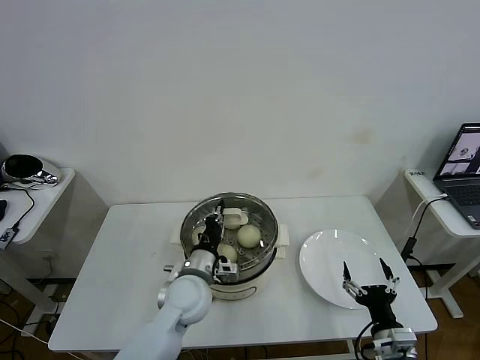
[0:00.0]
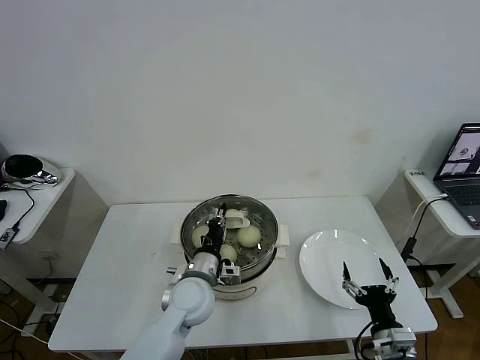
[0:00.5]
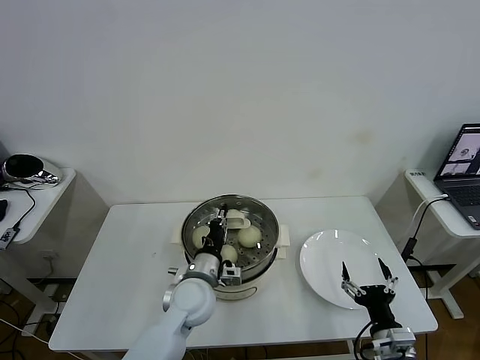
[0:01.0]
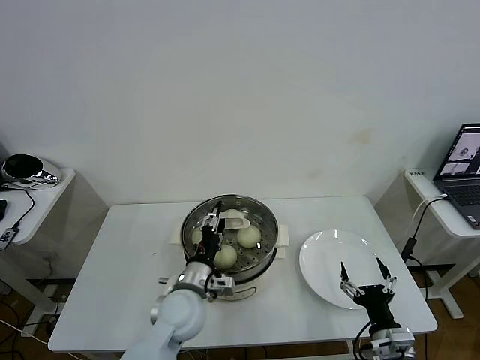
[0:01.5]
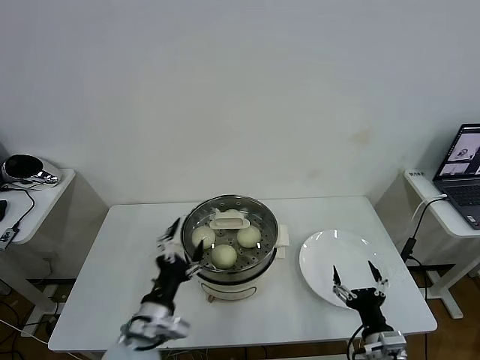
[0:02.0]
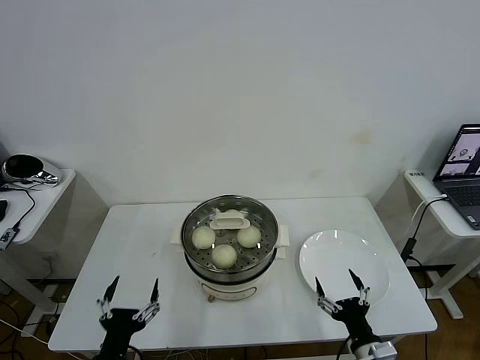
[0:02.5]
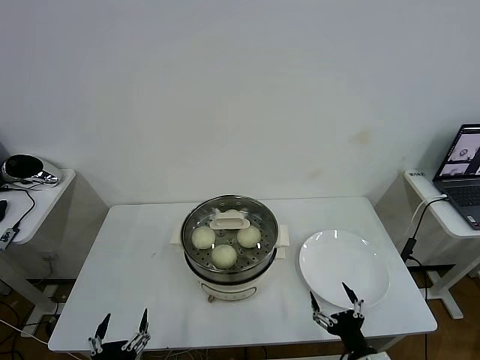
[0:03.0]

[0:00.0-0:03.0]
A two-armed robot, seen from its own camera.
Task of the whole recording: take steamed baozi put them in steamer then cover it.
0:00.0 to 0:01.5: The left gripper opens up.
0:01.5 to 0:03.0: The right gripper changes place by some 5 cm. Meanwhile the left gripper goes some 30 cm backward and to the left, and opens.

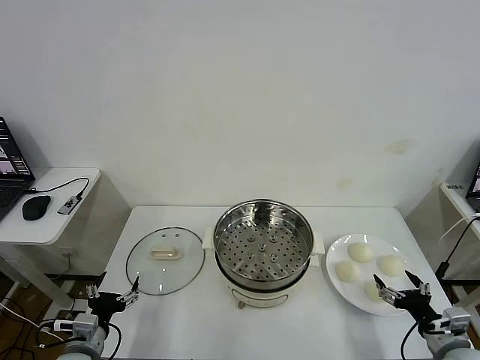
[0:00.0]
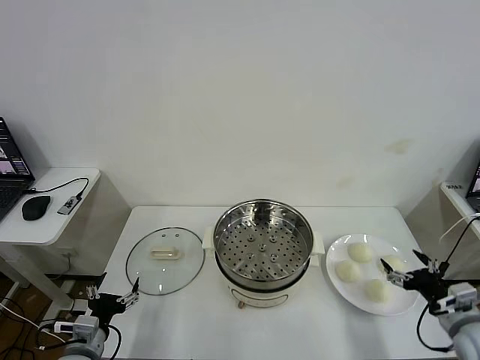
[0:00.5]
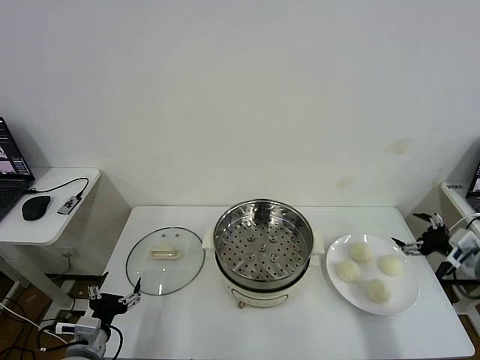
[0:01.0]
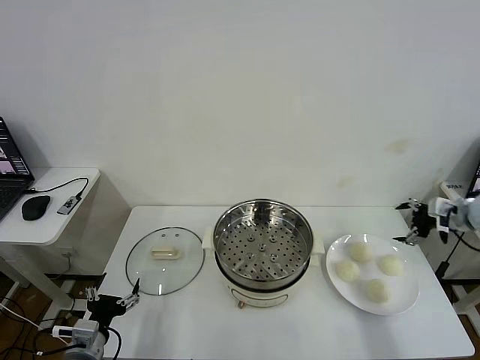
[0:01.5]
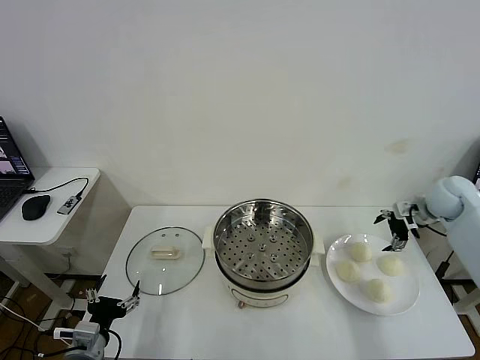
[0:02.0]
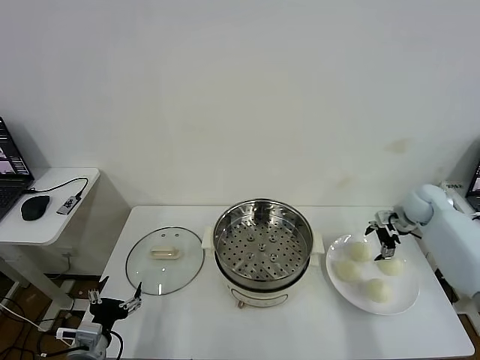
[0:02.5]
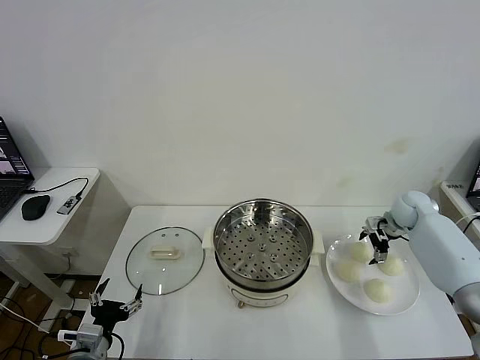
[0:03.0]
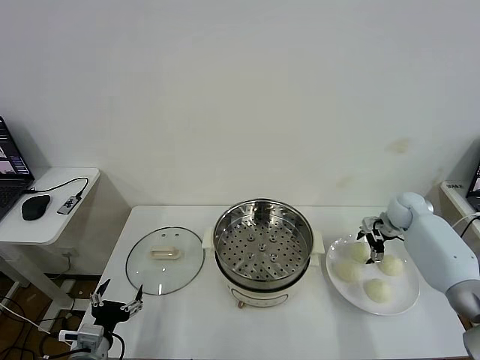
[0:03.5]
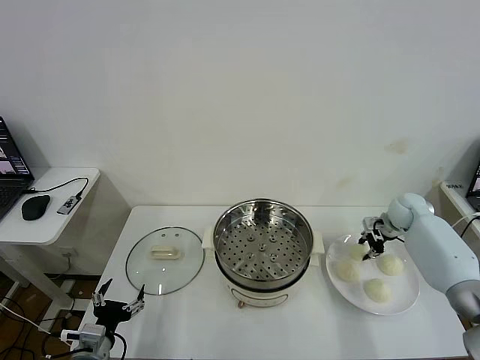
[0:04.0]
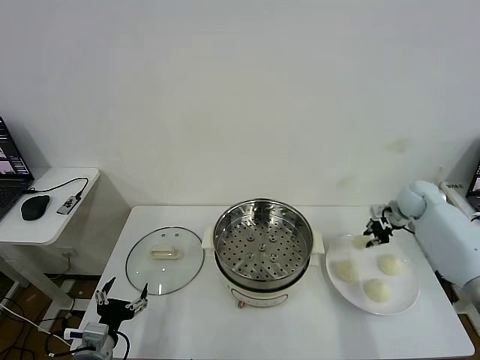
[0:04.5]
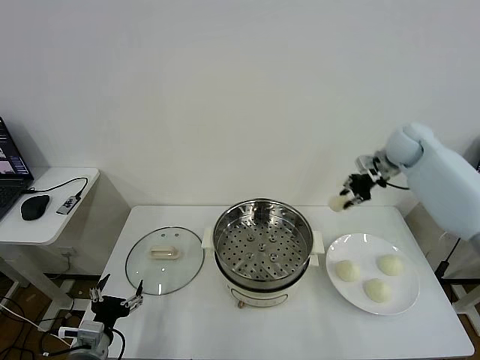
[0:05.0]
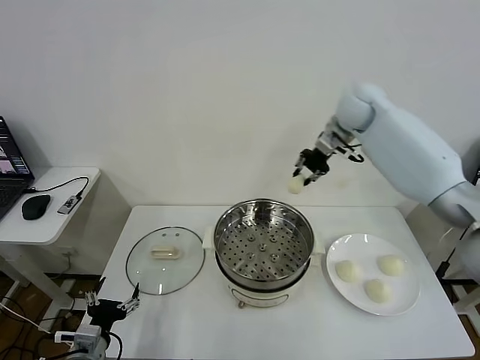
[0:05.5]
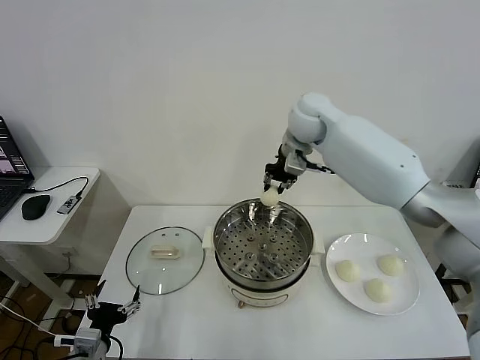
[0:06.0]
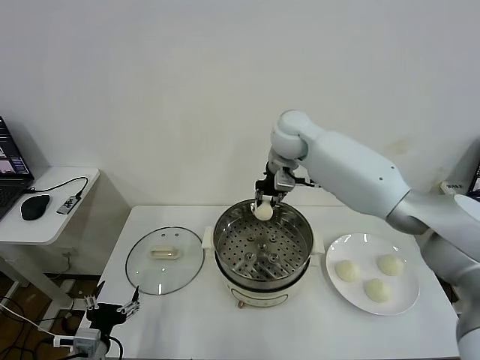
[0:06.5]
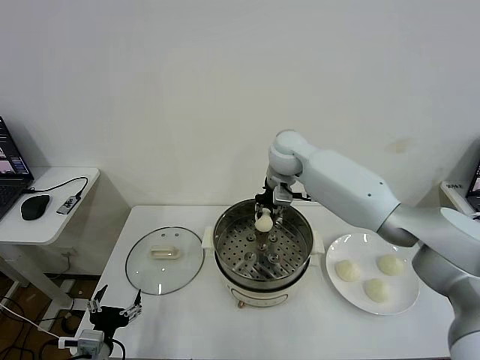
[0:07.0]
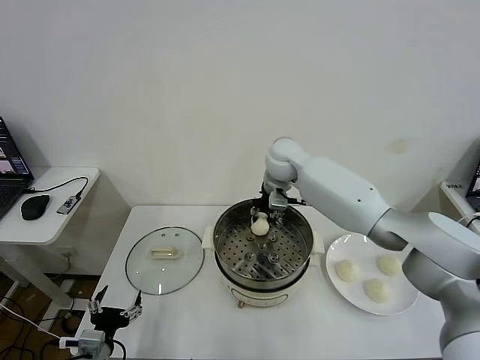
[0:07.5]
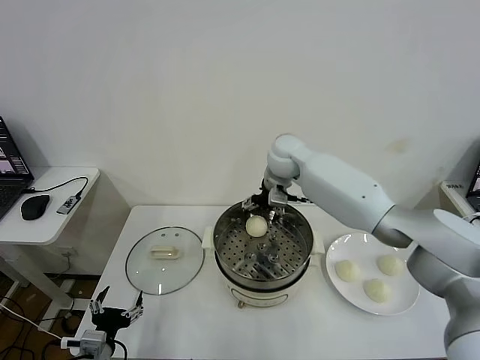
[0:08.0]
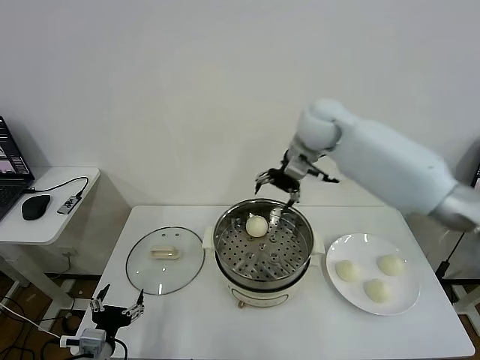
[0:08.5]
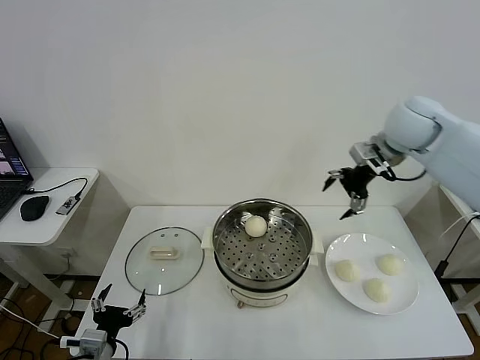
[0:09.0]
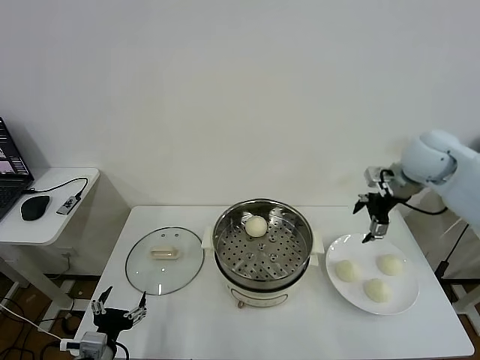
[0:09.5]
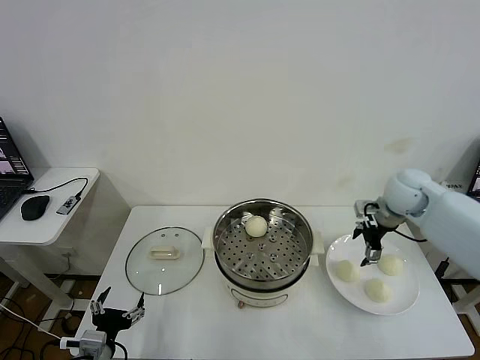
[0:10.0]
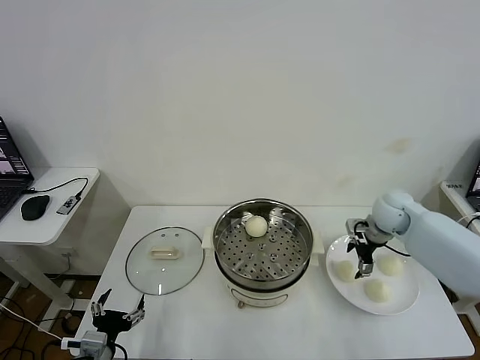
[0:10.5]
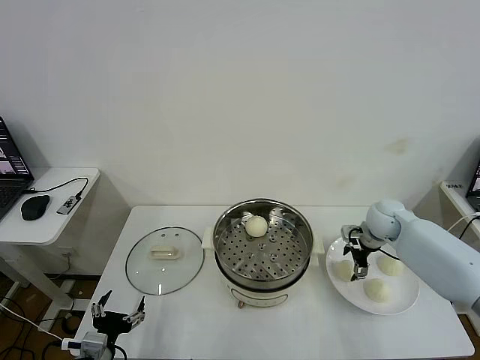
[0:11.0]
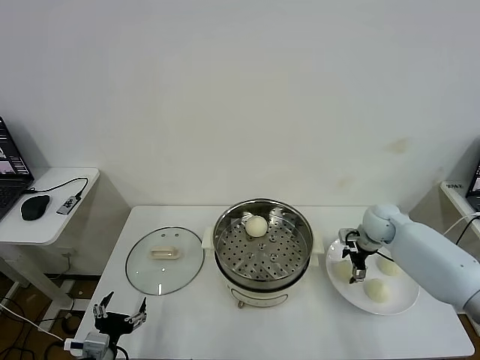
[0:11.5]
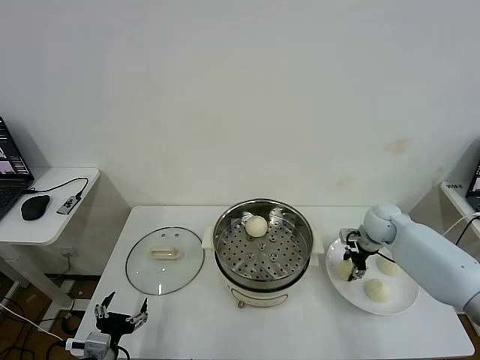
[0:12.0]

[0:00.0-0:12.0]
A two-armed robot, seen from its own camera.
Task of the whole recording: take steamed baozi put them in steamer then cover it.
Step, 0:00.0 to 0:04.0: Grasp the baozi in the plate with right gripper.
Step, 0:04.5 to 0:08.0: Place the baozi on the steamer with right gripper.
0:02.0 to 0:04.0: The right gripper is displaced downward by some 10 cm, and closes up.
0:04.0 to 0:06.0: The right gripper shifts approximately 40 cm to the left and upward.
0:06.0 to 0:08.0: The right gripper goes roughly 5 cm downward, and opens its fingers.
0:08.0 to 0:10.0: The right gripper travels to the right by approximately 25 cm.
0:10.0 to 0:12.0: The right gripper is displaced downward by roughly 10 cm, and closes its fingers.

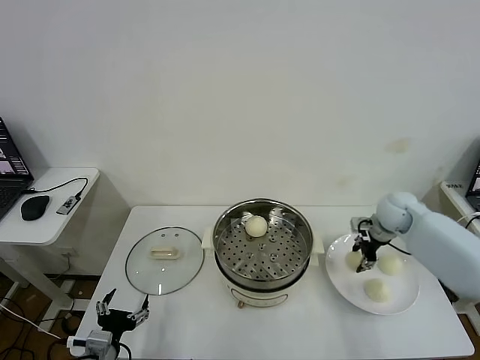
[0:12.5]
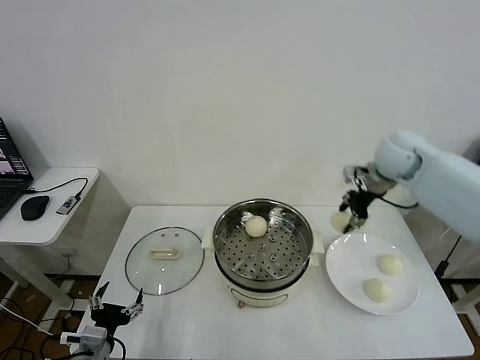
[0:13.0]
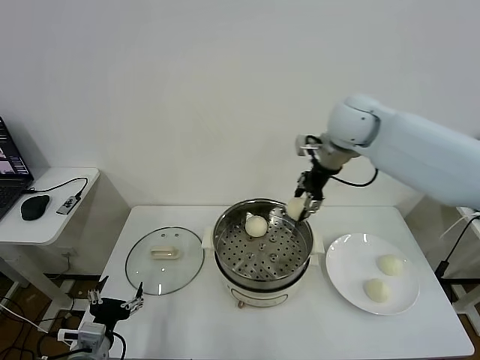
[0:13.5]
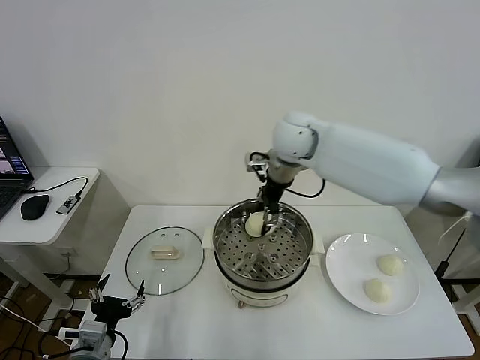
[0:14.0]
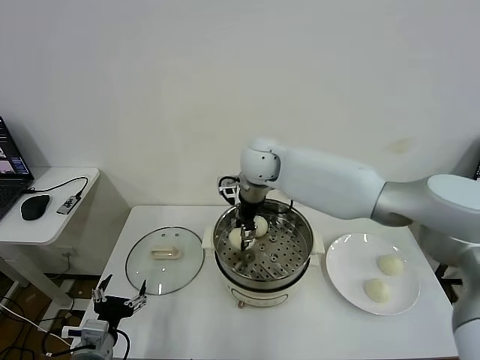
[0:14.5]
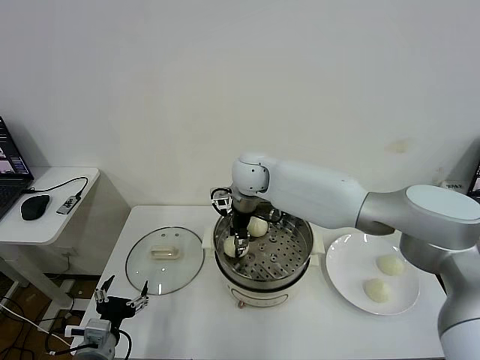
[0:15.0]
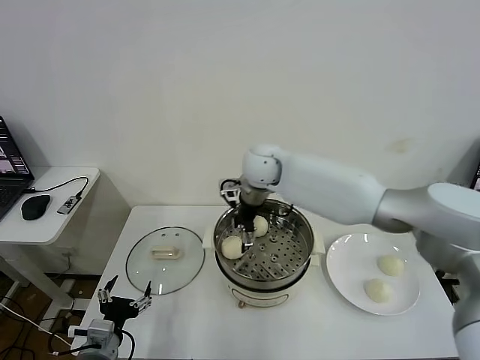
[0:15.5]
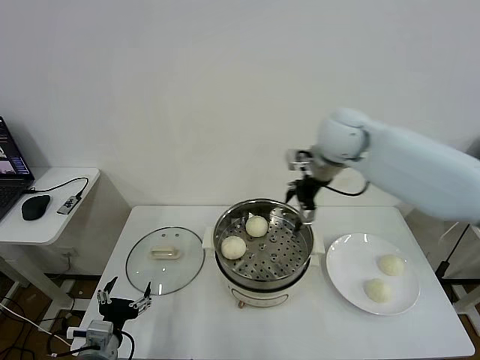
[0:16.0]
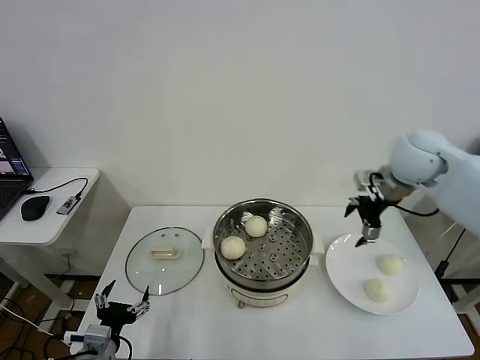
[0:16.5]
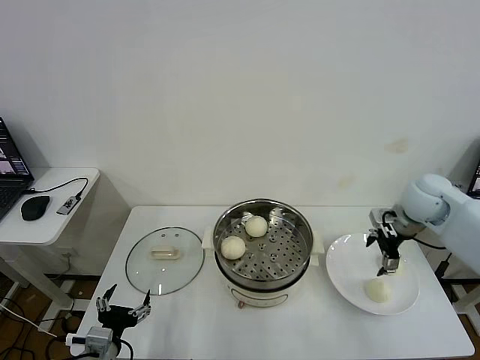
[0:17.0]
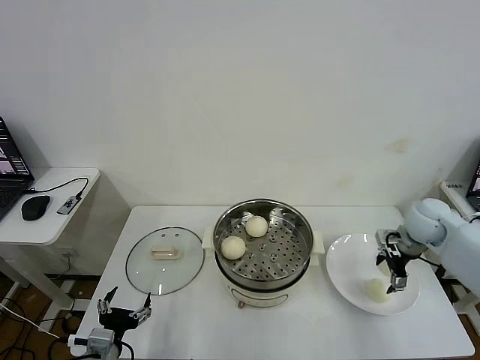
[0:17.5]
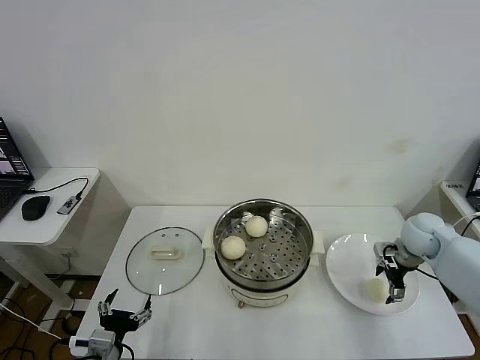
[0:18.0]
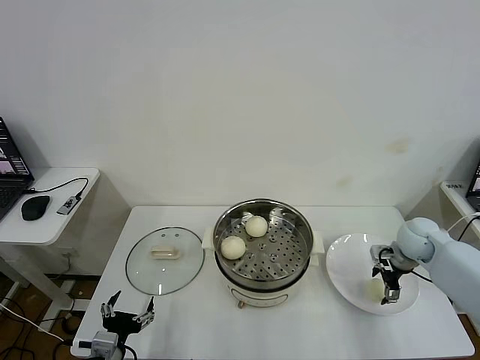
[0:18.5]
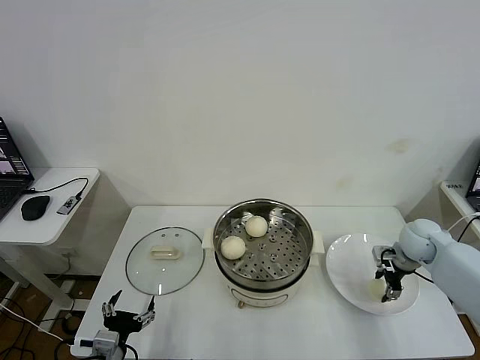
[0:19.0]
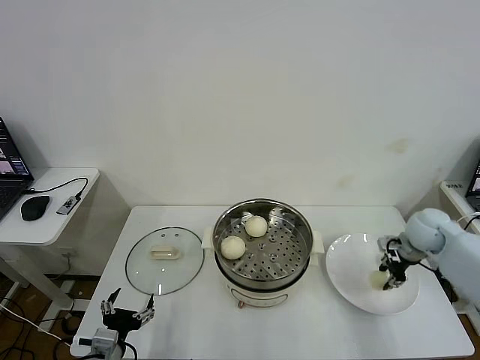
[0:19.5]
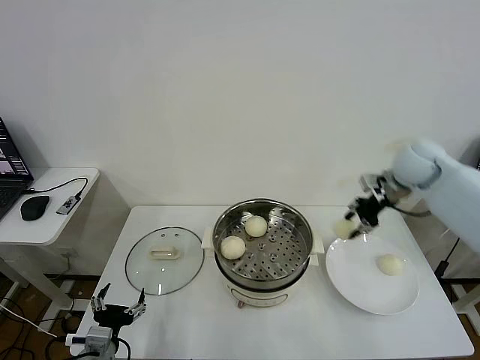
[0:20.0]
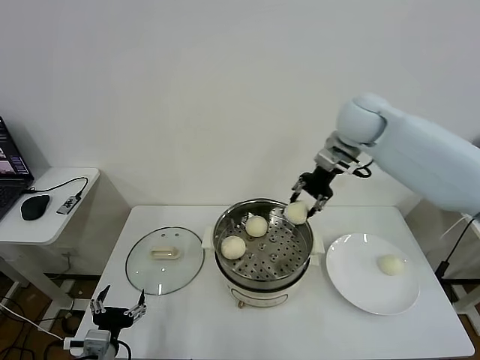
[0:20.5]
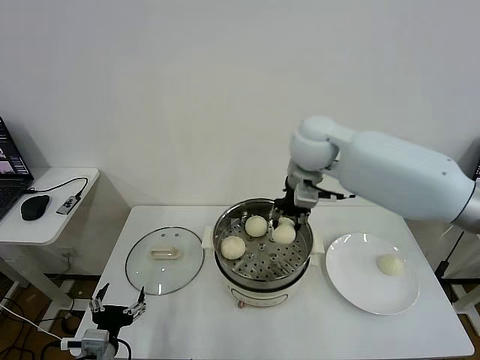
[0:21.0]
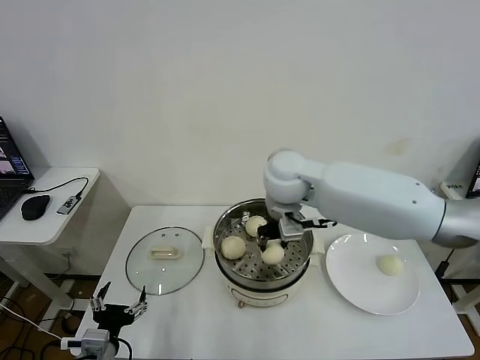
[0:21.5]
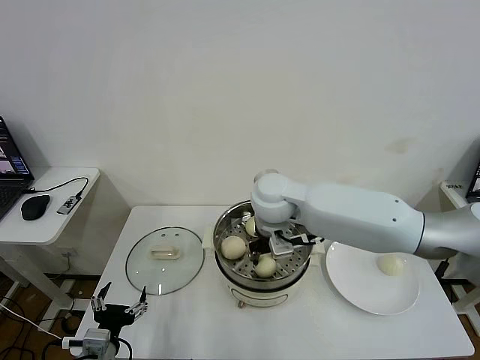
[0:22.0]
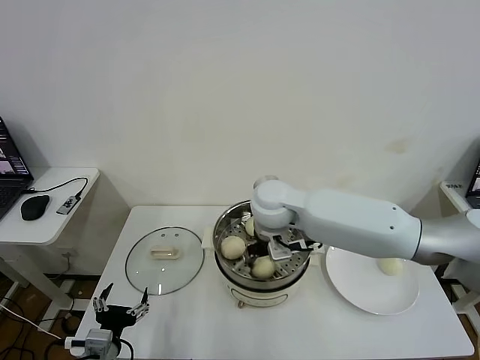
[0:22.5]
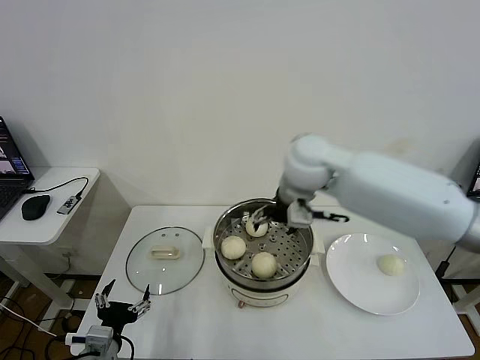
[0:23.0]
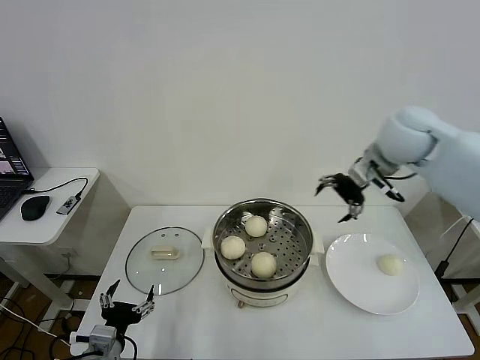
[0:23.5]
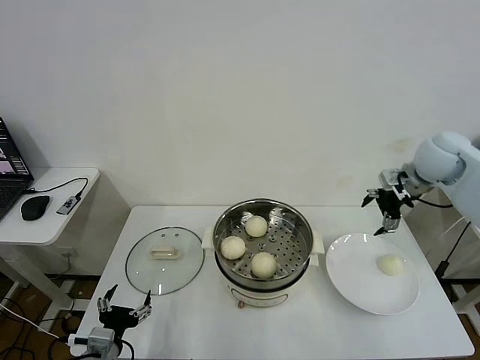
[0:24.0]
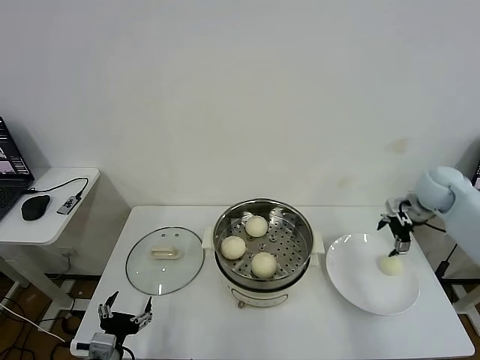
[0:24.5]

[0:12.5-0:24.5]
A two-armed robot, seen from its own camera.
Task of the whole recording: take steamed baozi put them in steamer then cover it.
Step, 0:12.5 to 0:15.0: Place the baozi on the steamer with right gripper.
Step, 0:16.0 to 0:19.0: Grasp the baozi in the plate with right gripper.
Step, 0:20.0 to 0:22.5: Place the baozi on the steamer with right gripper.
0:12.5 to 0:14.5: The right gripper moves to the left, about 35 cm.
0:14.5 to 0:16.5: The right gripper goes about 30 cm to the right, and opens up.
0:16.5 to 0:18.5: The right gripper heads downward and to the right, covering approximately 20 cm.
0:18.5 to 0:20.5: The right gripper shifts some 35 cm upward and to the left, and closes up.
0:20.5 to 0:22.5: The right gripper goes approximately 25 cm to the left, downward and backward.
0:22.5 to 0:24.5: The right gripper is displaced to the right by some 40 cm, and opens its fingers.
